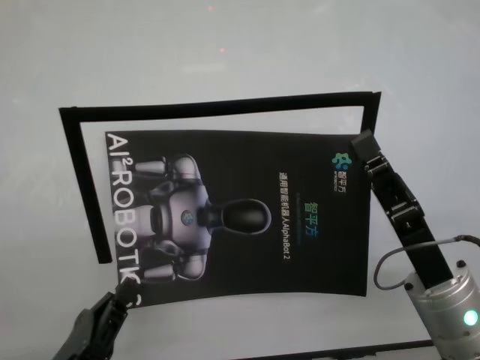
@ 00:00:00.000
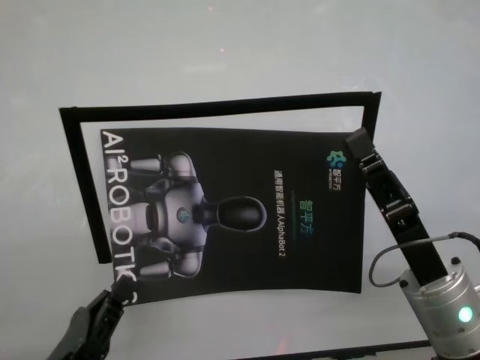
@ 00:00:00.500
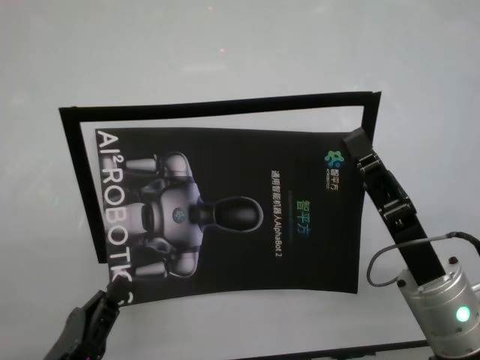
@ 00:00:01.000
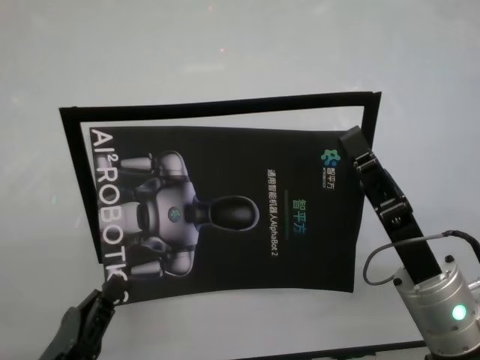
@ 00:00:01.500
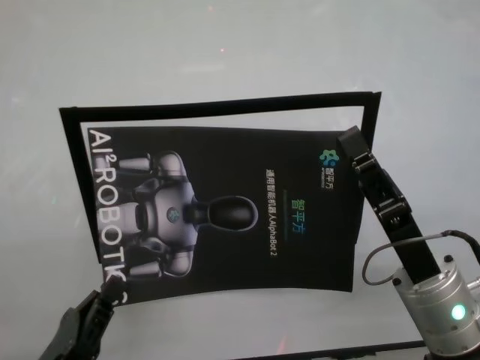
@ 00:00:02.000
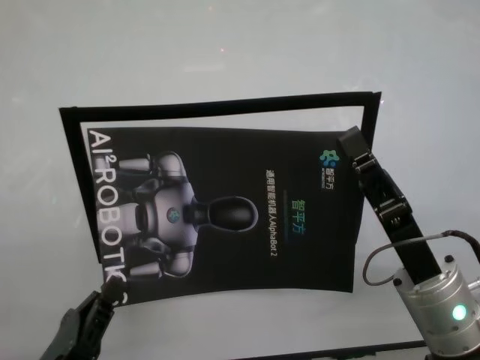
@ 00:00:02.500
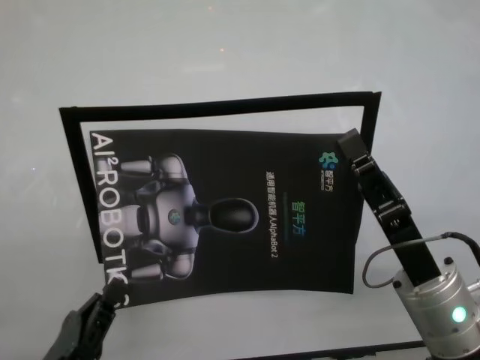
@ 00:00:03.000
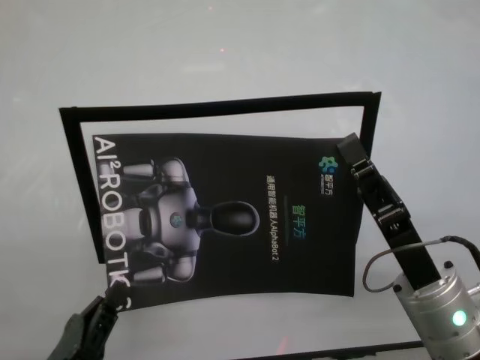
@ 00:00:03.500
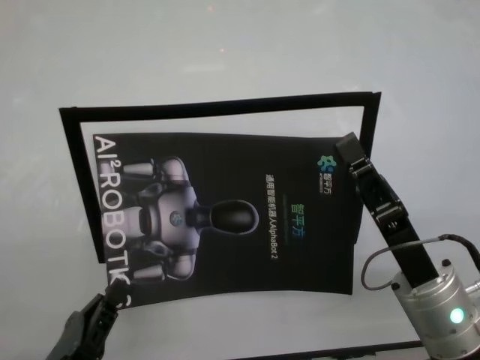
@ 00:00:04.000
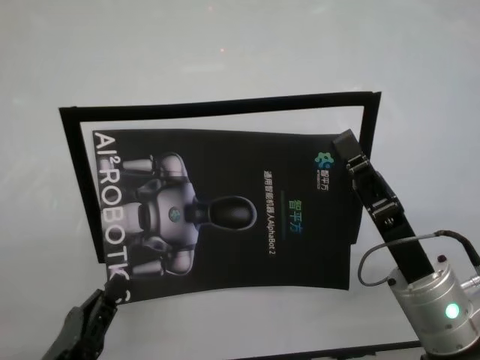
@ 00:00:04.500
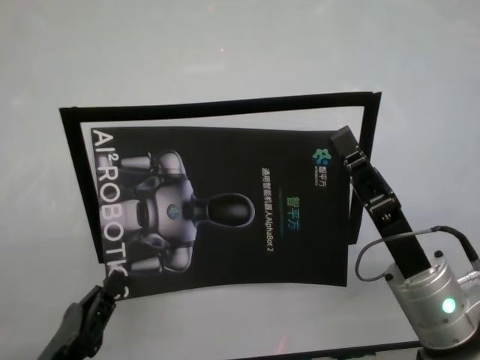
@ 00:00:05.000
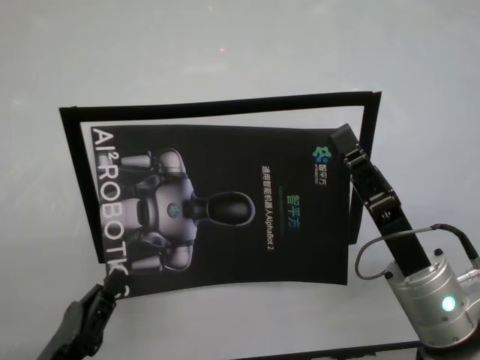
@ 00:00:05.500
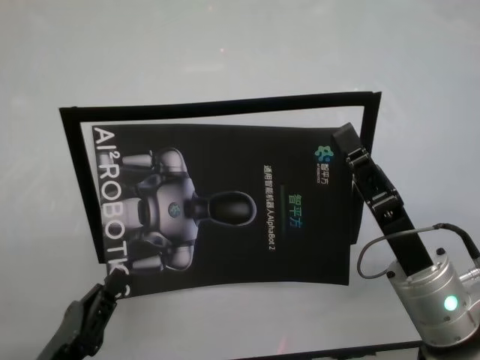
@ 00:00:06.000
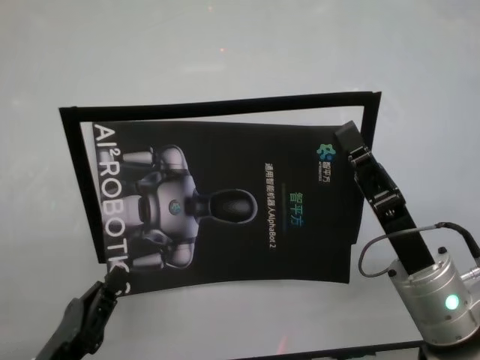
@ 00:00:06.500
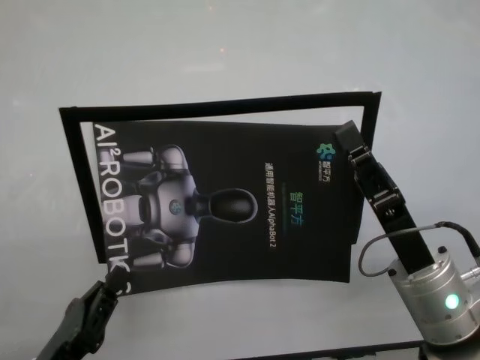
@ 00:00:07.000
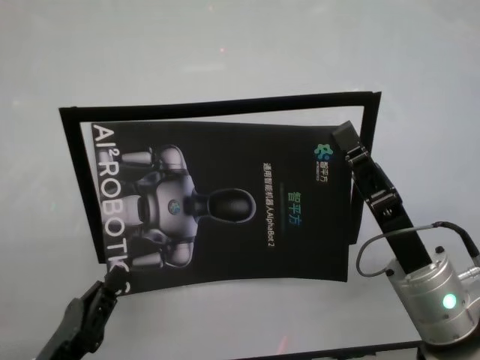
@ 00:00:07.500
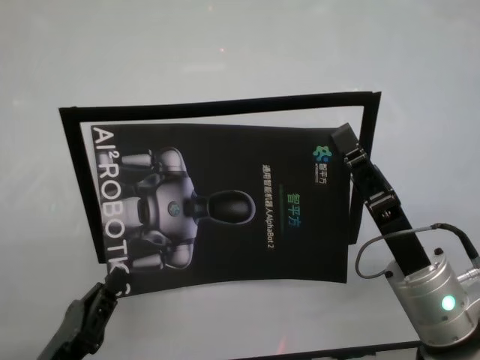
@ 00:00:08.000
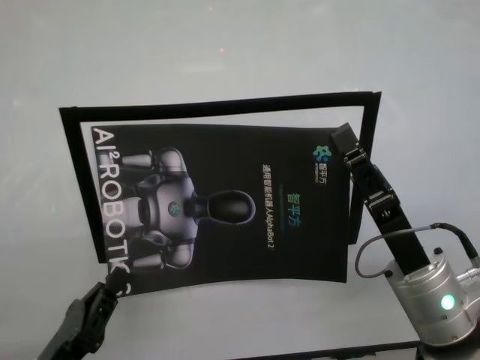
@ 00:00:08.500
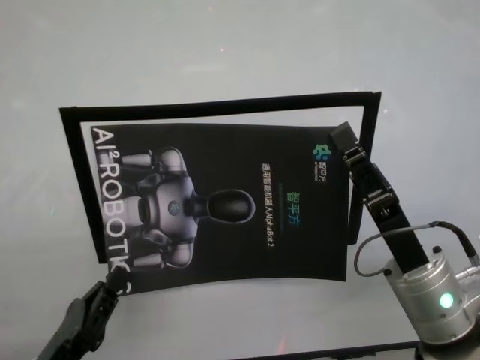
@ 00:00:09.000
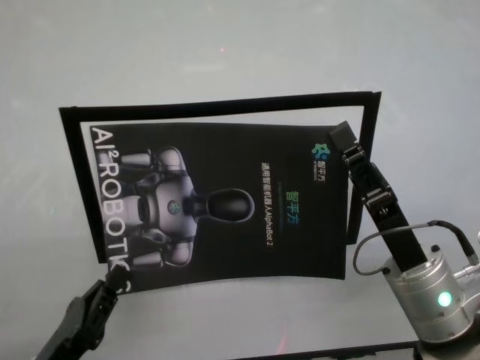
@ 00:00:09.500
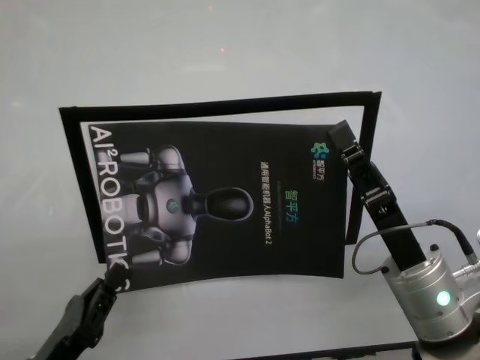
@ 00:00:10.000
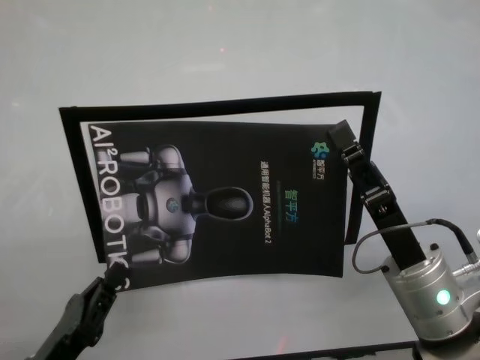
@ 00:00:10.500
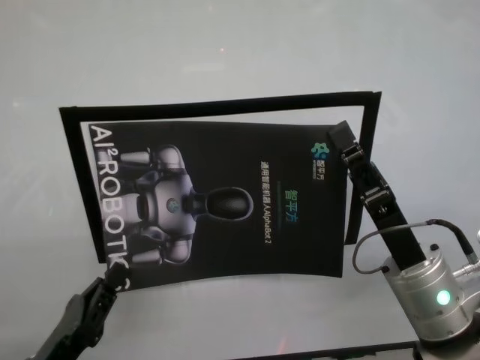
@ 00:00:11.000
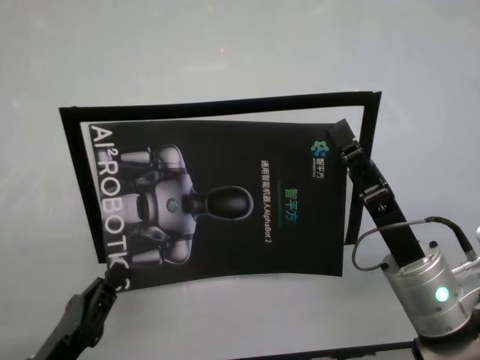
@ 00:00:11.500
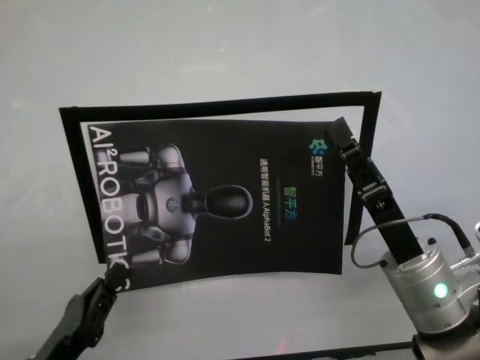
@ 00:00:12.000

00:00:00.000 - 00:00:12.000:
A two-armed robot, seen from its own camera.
Task of the whole recording: stick the poster on the table by hand.
Step, 00:00:00.000 - 00:00:06.000: Stick the advertisement in the top-right corner area with both grippers.
